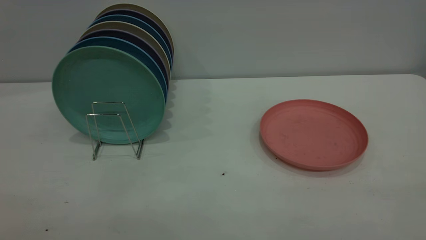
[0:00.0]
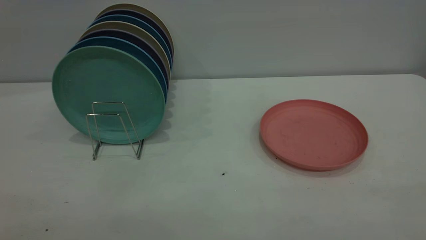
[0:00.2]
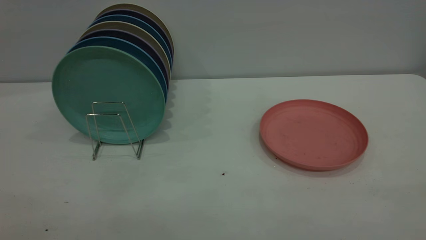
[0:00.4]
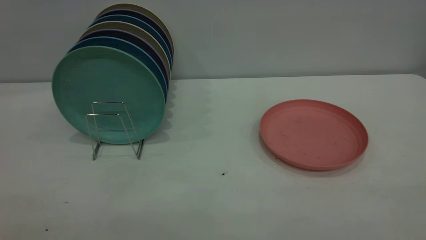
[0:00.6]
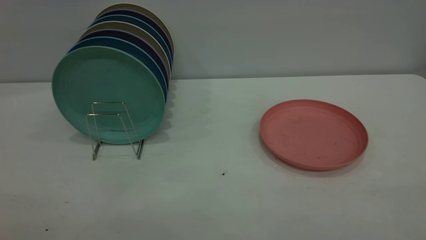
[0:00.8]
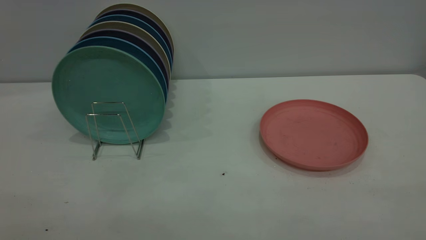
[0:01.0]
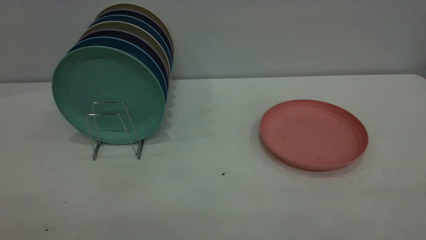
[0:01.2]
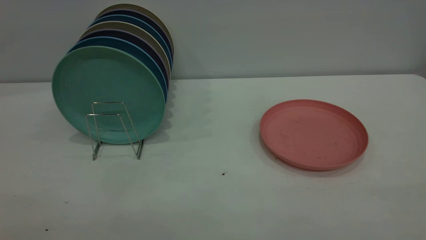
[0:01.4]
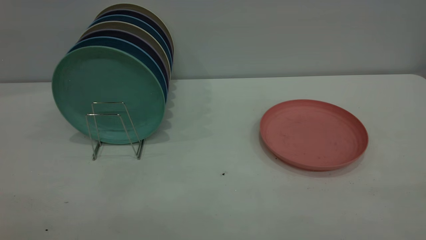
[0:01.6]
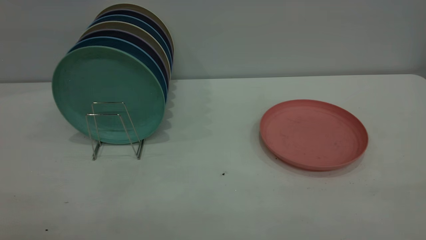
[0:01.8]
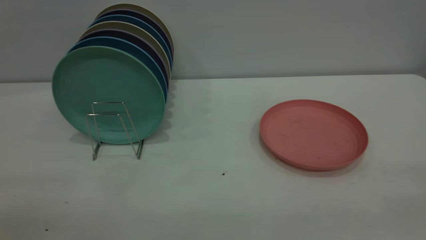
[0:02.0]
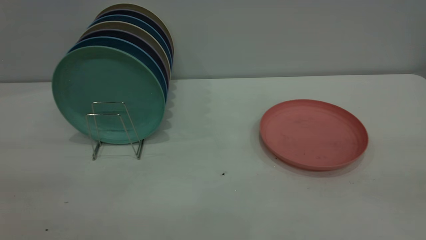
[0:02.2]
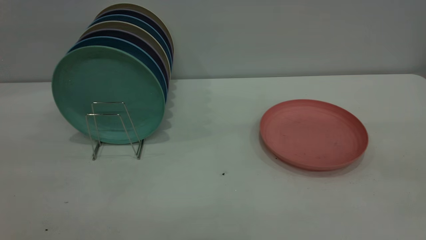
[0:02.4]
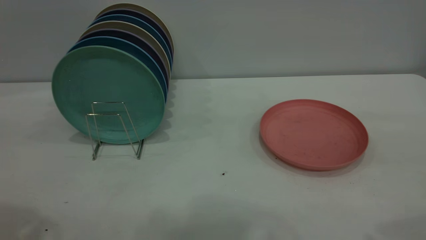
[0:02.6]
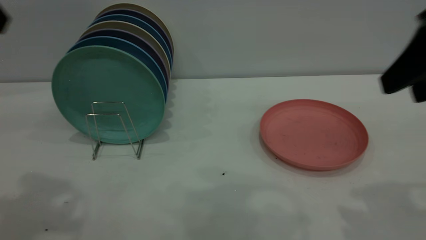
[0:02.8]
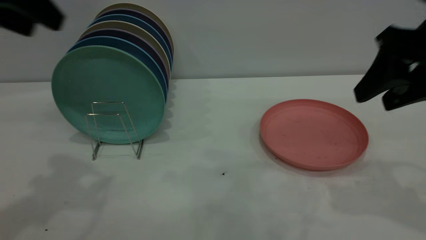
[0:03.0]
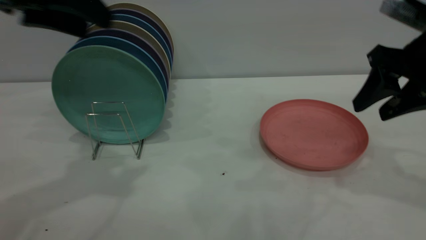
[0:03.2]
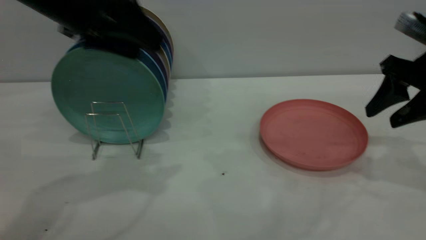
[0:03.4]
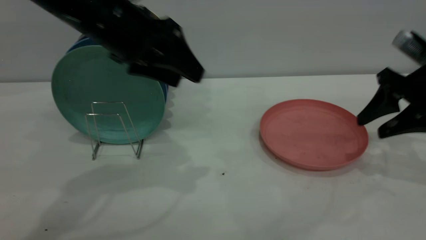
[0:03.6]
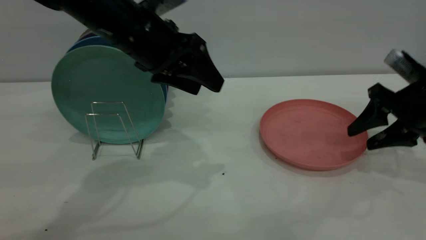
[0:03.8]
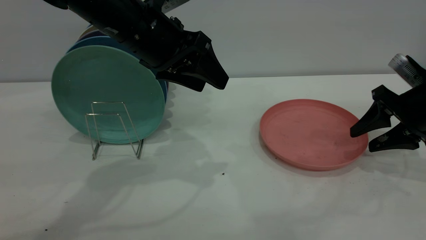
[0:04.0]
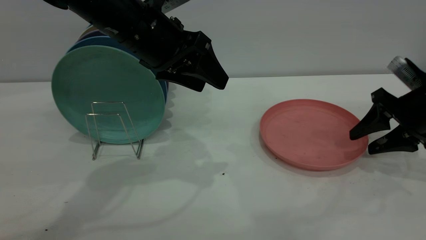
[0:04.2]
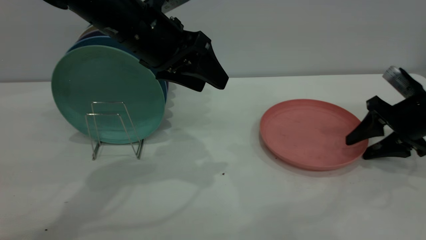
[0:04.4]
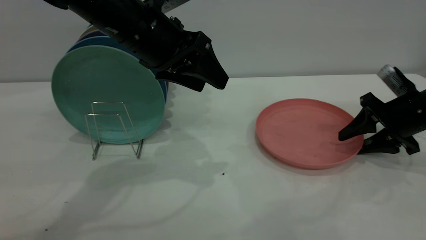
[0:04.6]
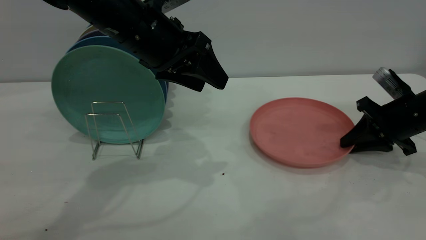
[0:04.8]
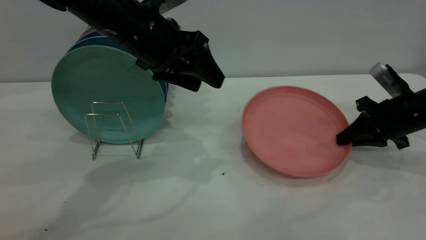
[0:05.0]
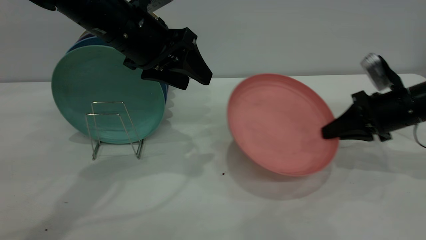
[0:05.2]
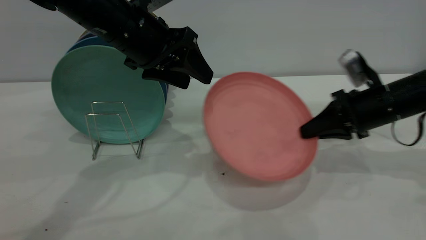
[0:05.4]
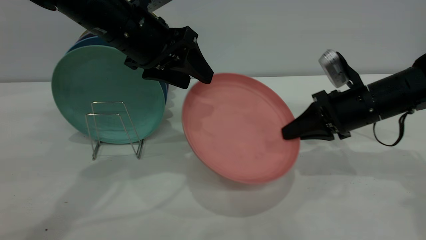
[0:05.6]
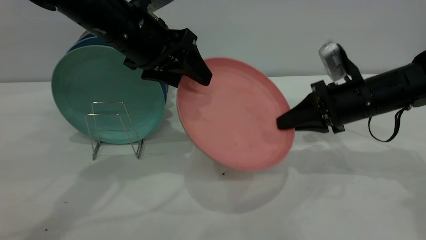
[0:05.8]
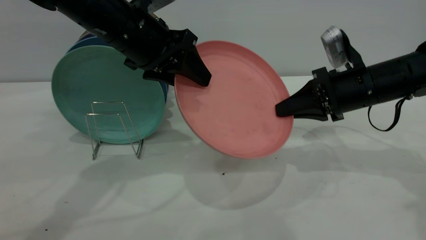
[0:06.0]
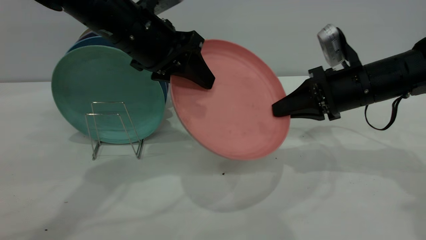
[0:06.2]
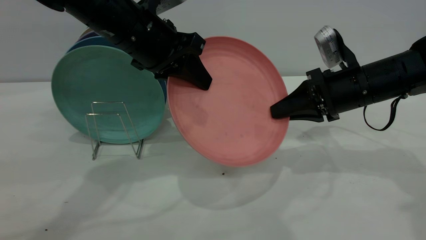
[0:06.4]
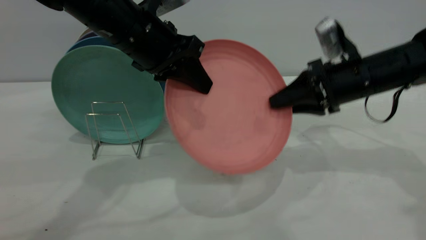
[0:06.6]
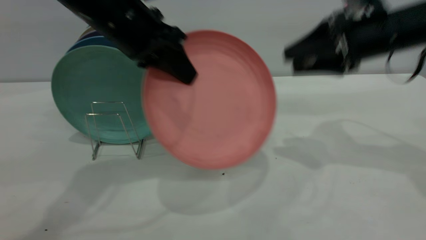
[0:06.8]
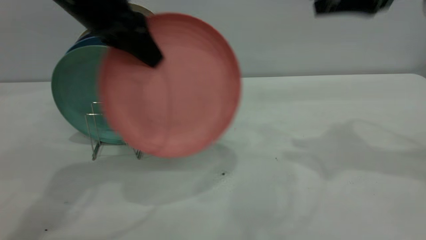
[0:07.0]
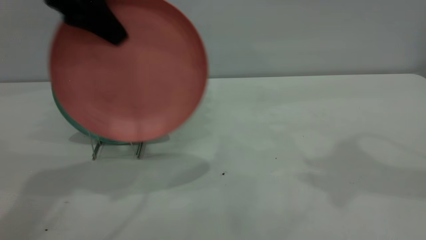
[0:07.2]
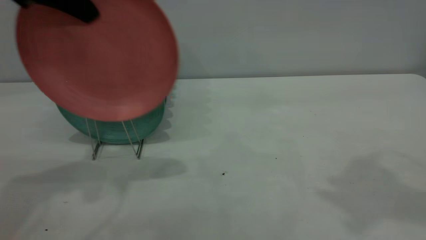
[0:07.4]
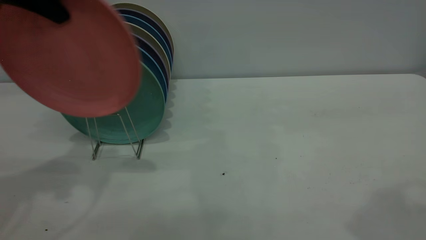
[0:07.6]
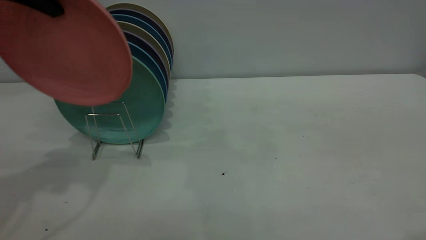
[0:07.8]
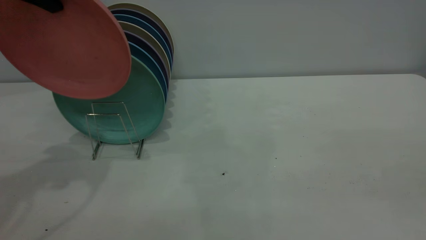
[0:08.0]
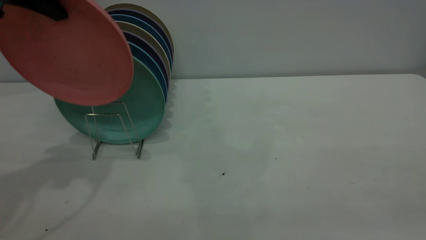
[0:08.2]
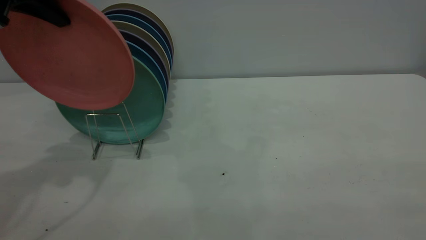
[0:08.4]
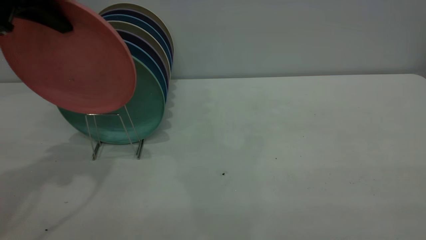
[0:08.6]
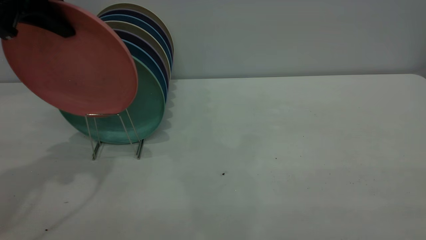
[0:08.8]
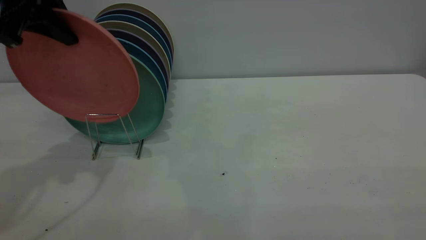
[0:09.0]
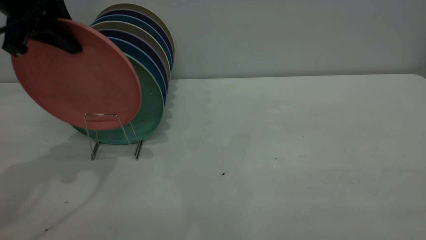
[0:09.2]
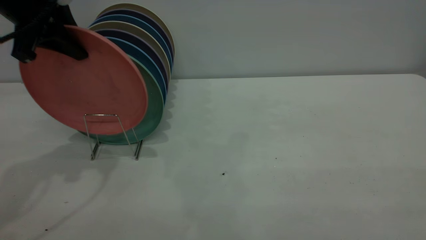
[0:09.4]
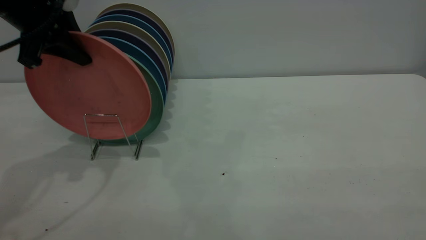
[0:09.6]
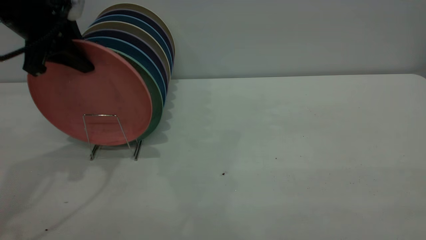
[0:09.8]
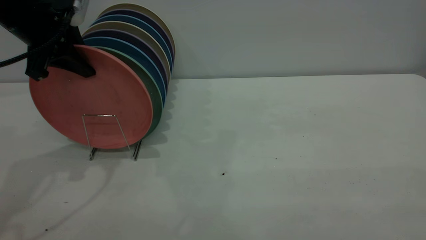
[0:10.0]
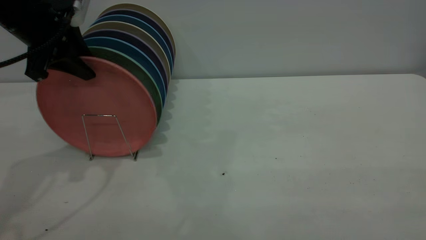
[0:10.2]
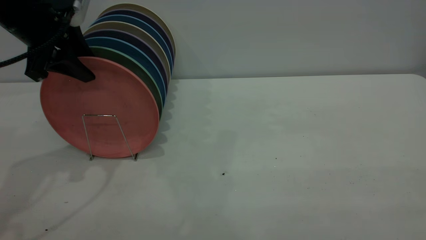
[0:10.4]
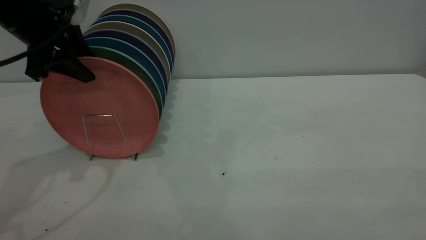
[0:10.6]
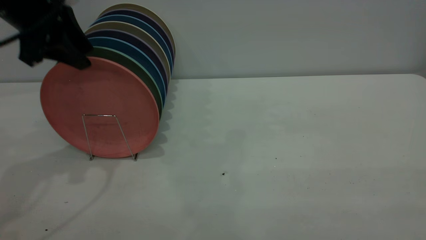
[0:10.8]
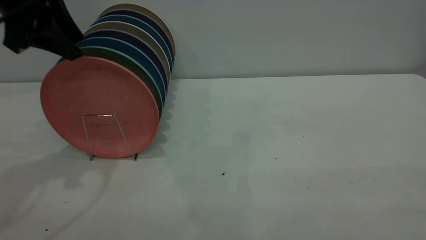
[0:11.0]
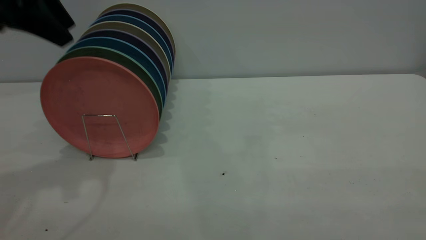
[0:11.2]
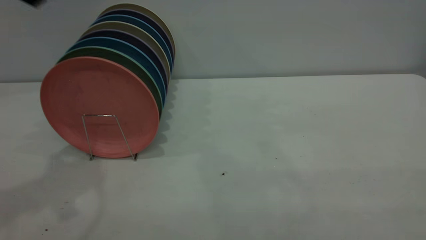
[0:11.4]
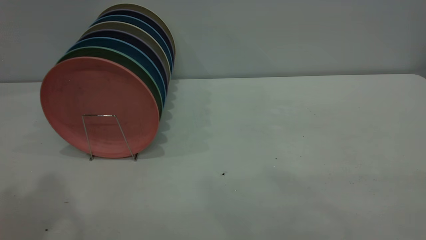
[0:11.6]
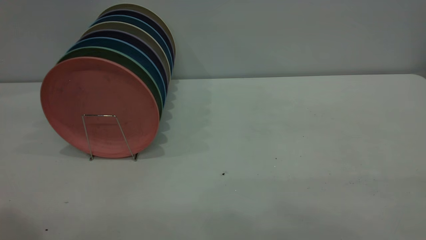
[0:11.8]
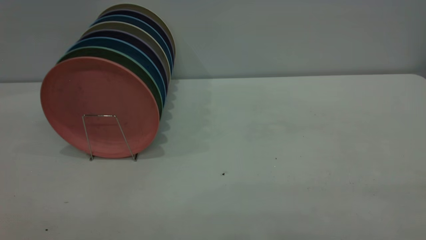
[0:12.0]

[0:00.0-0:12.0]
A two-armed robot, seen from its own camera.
Task of the whole recording: the right gripper grasp the pink plate, the right gripper pass the pink plate to the left gripper, and the left gripper place the pink plate on the plate rack.
Step, 0:00.0 to 0:05.2: Pick up the plate with the right gripper.
Step, 0:05.4 to 0:06.6: Pass the plate from the right gripper to the left gripper.
Step, 0:07.0 to 0:11.2: Place the plate on the shelf.
0:00.0 to 0:01.6: Neither gripper changes place.
0:01.6 to 0:03.0: The grippers both shift forward by approximately 30 cm. The left gripper opens its fingers.
0:03.0 to 0:04.4: The right gripper goes roughly 20 cm downward, forward and to the right; the left gripper goes approximately 20 cm to the right, downward and forward.
0:04.4 to 0:06.0: The right gripper heads to the left, covering about 10 cm, and closes.
0:06.0 to 0:07.6: The right gripper is displaced upward and backward by some 35 cm, and opens up. The left gripper heads to the left and upward, covering some 20 cm, and closes up.
0:07.6 to 0:09.0: The left gripper changes place by approximately 5 cm.
0:09.0 to 0:10.4: The left gripper travels downward by roughly 5 cm, and opens up.
0:10.4 to 0:12.0: The left gripper goes some 40 cm backward and upward.
